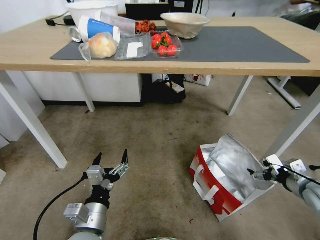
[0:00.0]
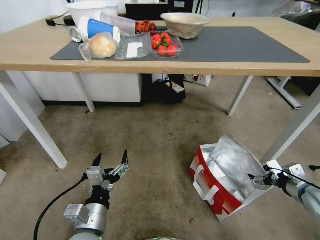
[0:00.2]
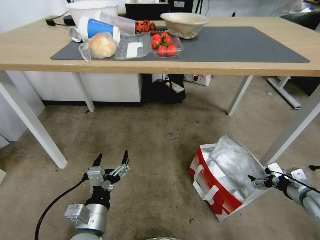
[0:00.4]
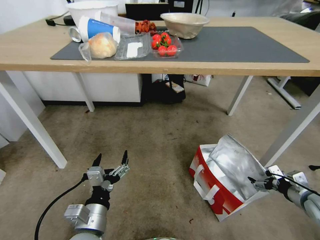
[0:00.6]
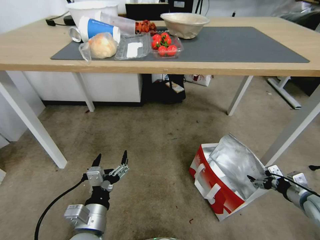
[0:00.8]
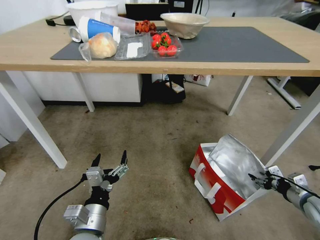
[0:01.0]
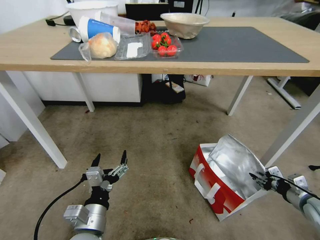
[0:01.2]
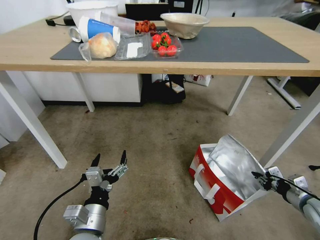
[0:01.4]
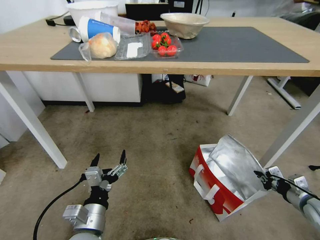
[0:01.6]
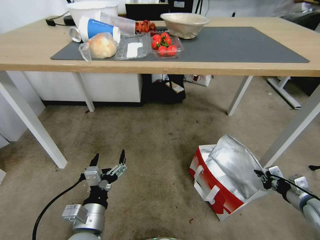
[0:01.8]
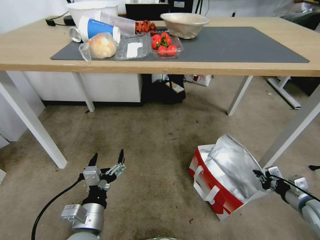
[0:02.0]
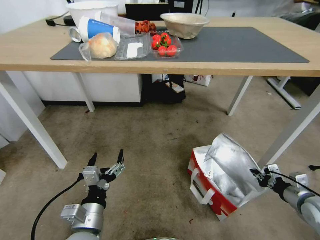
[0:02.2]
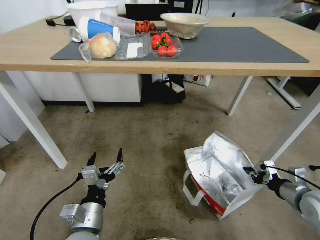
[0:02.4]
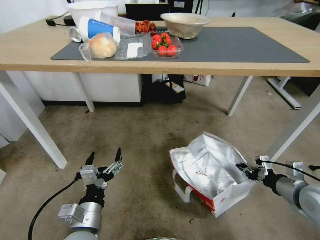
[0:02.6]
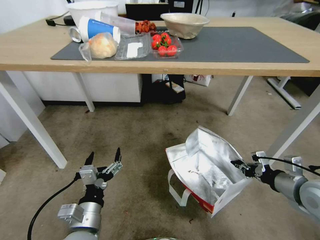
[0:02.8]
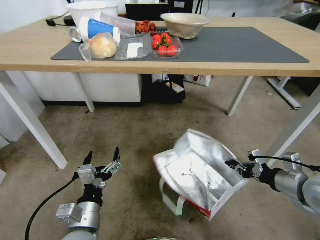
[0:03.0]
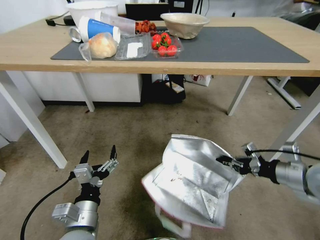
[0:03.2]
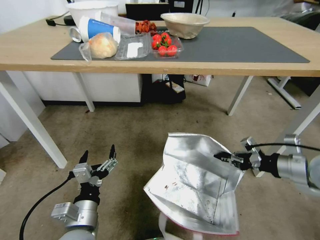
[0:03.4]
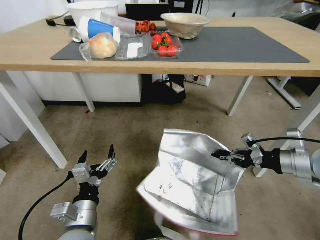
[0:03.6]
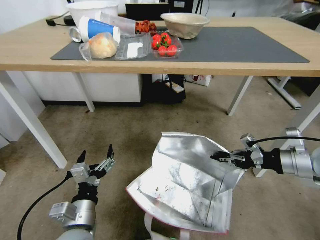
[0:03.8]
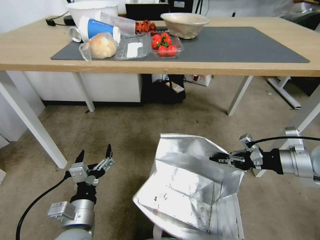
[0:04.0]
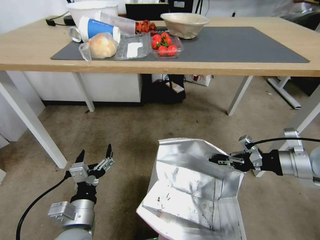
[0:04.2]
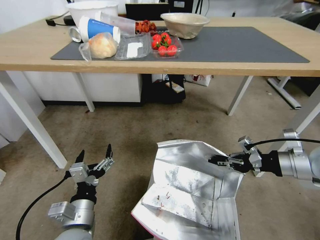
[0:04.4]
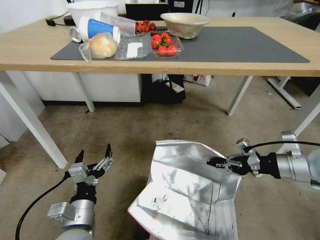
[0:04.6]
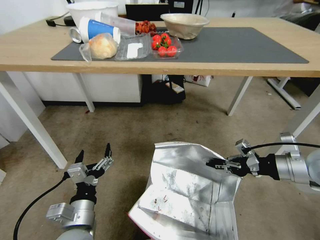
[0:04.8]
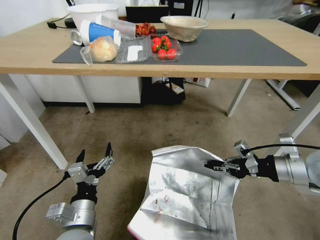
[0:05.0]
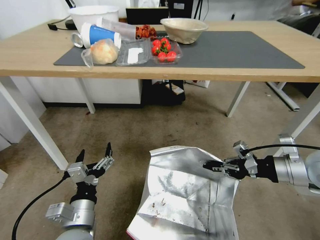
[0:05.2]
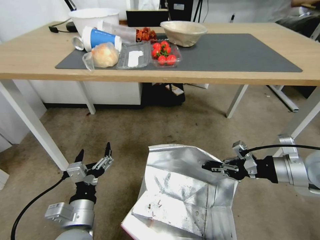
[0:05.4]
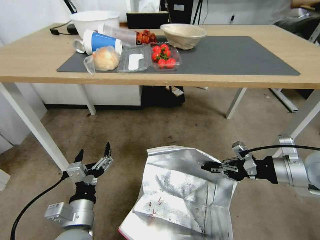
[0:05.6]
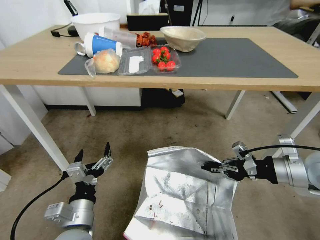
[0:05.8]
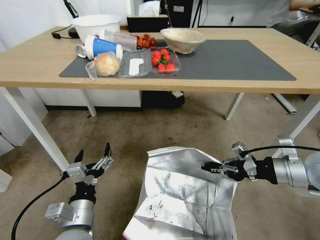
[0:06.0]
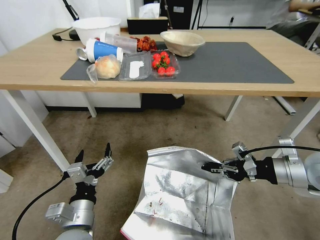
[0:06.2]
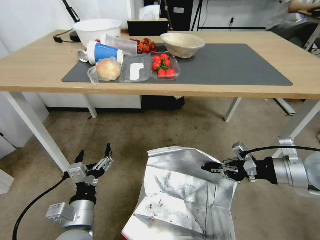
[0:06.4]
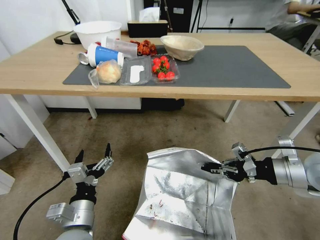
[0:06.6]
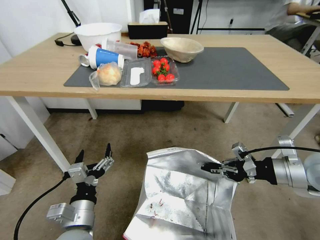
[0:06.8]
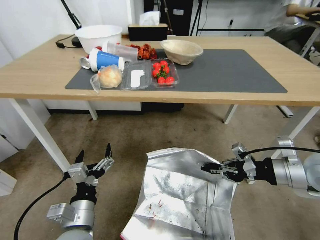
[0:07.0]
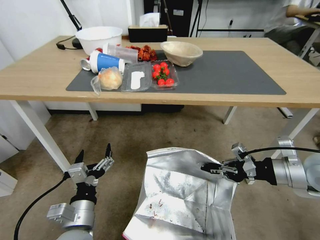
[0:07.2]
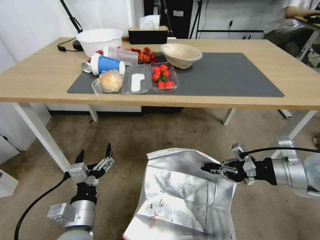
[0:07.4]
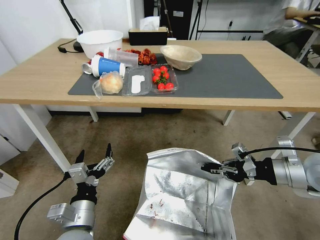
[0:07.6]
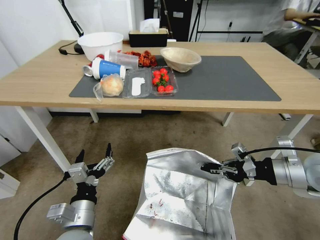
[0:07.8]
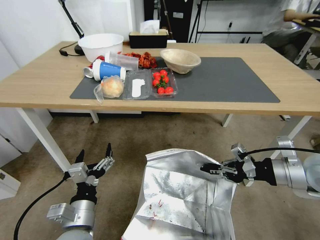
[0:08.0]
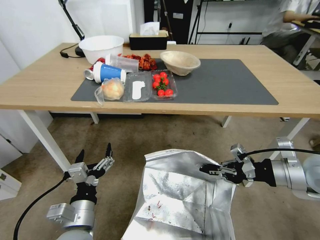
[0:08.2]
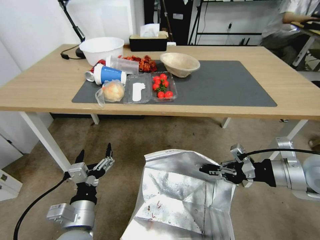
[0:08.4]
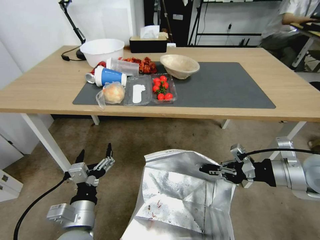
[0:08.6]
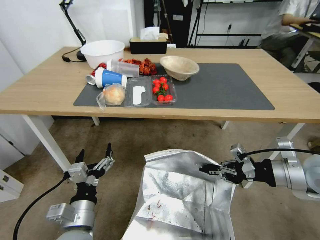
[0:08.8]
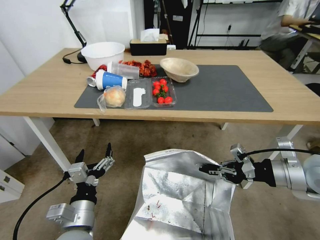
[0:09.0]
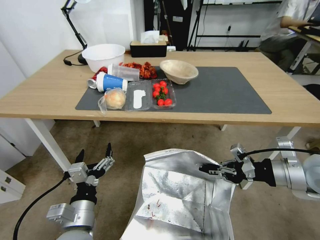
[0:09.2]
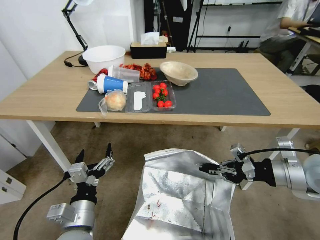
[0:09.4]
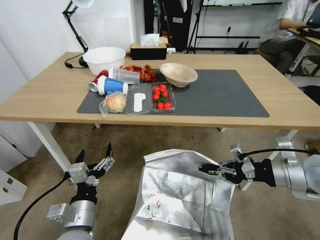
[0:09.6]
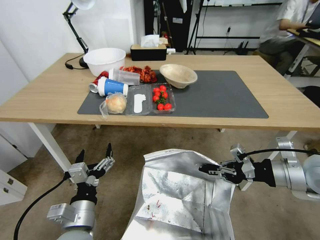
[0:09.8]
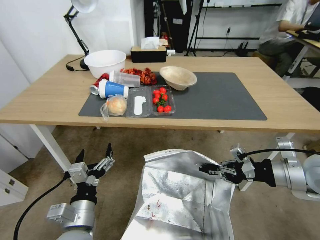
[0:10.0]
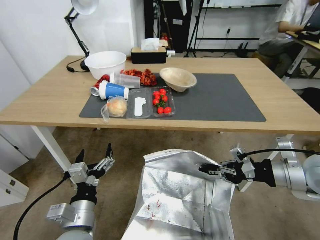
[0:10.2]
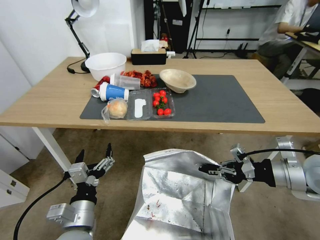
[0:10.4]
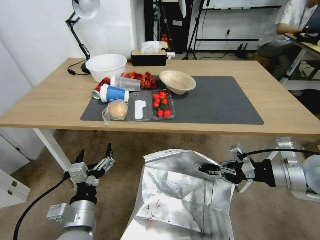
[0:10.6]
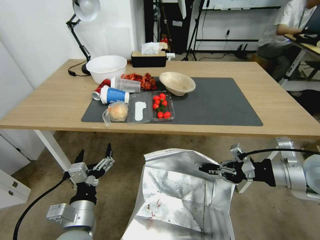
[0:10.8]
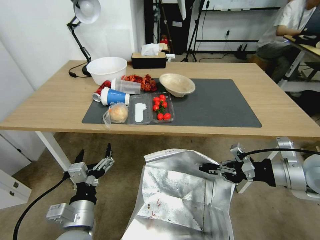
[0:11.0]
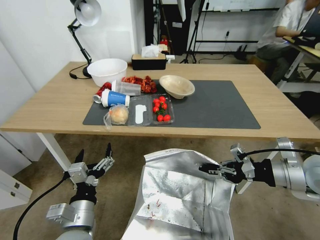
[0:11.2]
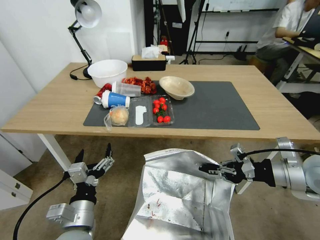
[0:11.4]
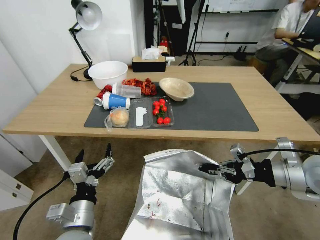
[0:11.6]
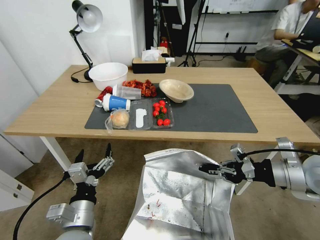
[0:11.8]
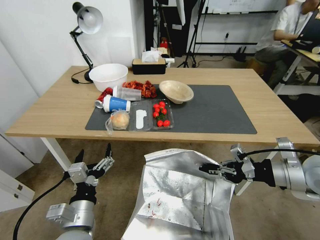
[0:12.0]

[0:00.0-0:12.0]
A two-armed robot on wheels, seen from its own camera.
Task of the whole recording: Pick up the food delivery bag from the floor and place it on the table.
0:00.0 to 0:01.6: The right gripper travels downward by roughly 10 cm, and closes.
0:01.6 to 0:03.0: The right gripper moves upward and to the left, approximately 15 cm.
0:03.0 to 0:04.4: The right gripper goes some 5 cm upward.

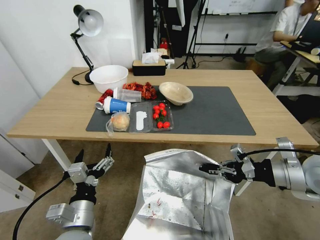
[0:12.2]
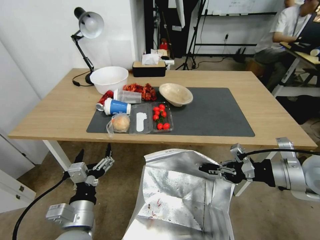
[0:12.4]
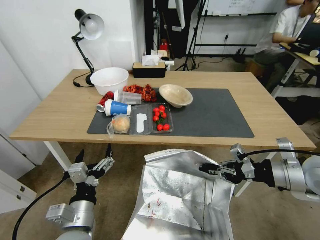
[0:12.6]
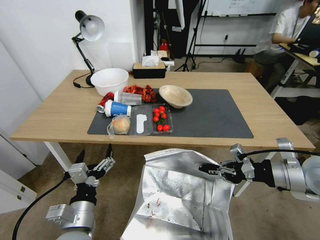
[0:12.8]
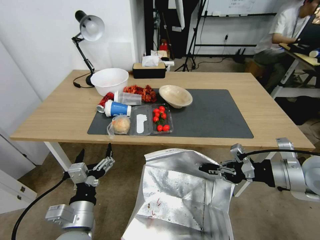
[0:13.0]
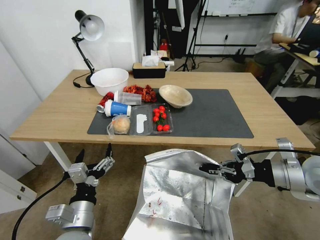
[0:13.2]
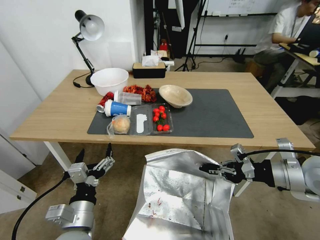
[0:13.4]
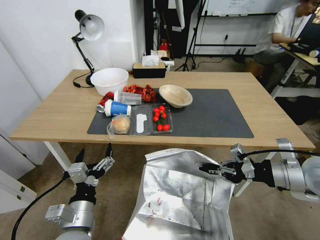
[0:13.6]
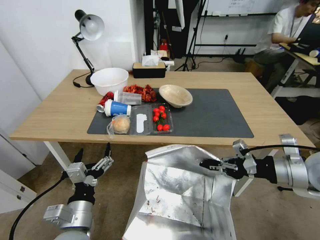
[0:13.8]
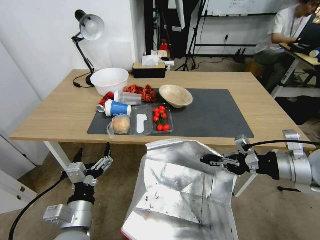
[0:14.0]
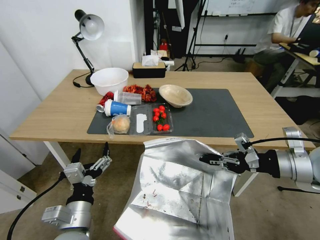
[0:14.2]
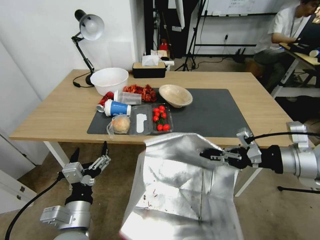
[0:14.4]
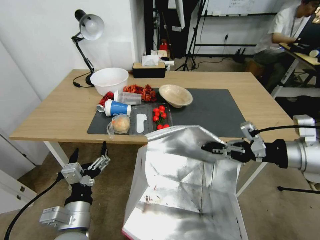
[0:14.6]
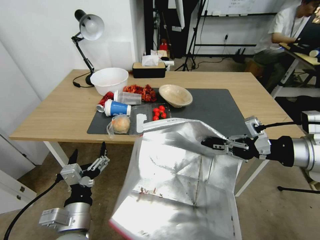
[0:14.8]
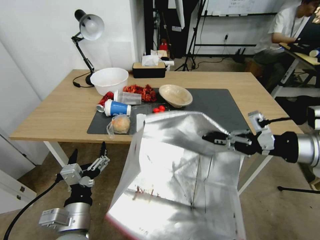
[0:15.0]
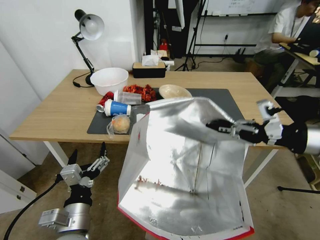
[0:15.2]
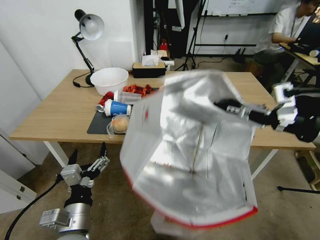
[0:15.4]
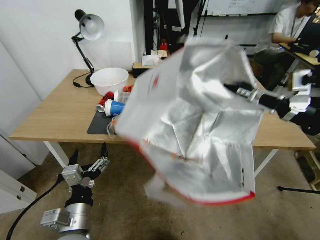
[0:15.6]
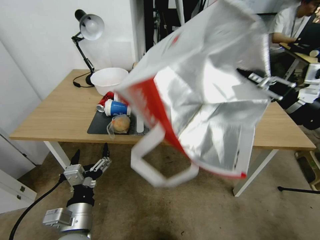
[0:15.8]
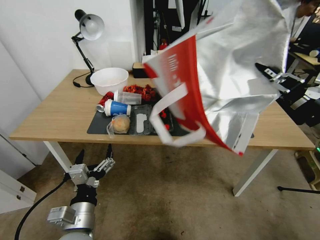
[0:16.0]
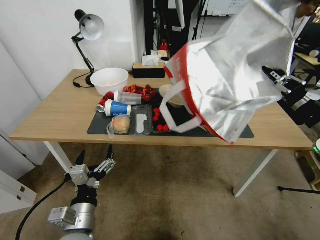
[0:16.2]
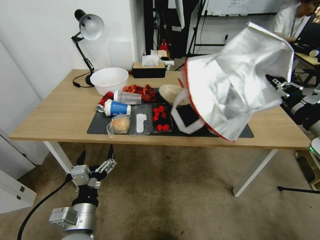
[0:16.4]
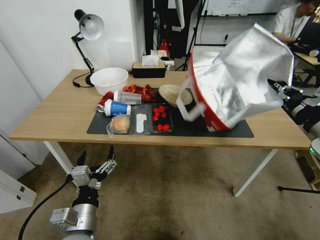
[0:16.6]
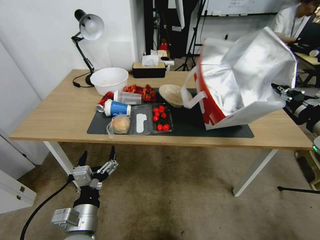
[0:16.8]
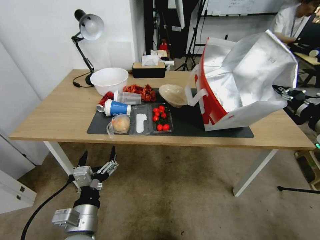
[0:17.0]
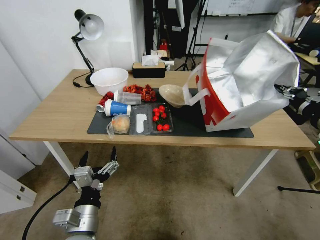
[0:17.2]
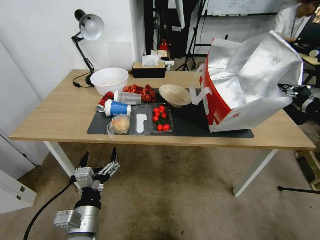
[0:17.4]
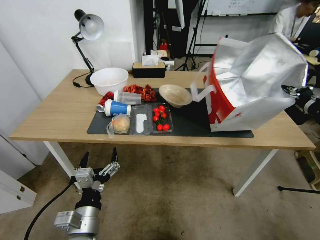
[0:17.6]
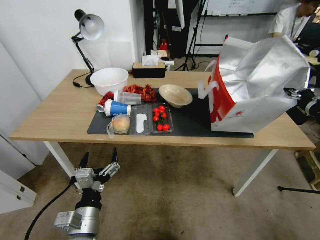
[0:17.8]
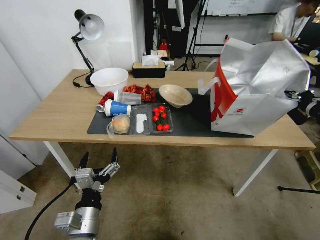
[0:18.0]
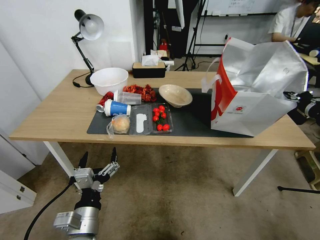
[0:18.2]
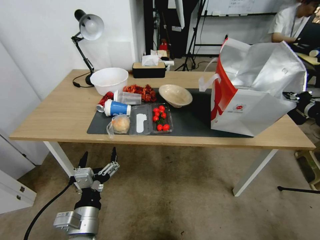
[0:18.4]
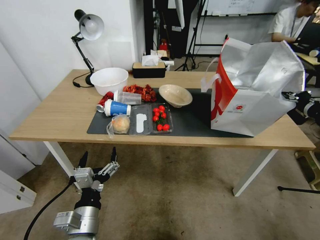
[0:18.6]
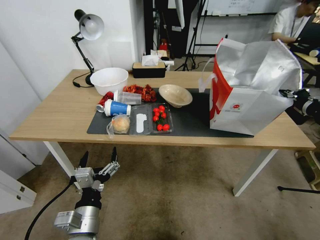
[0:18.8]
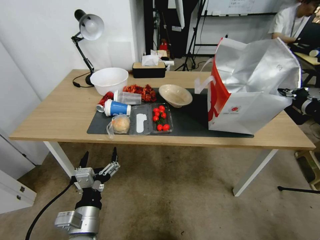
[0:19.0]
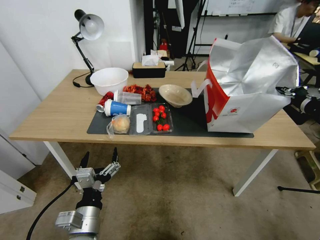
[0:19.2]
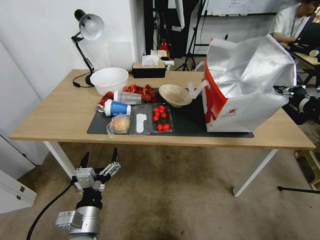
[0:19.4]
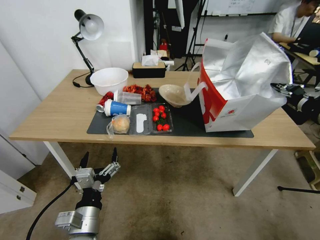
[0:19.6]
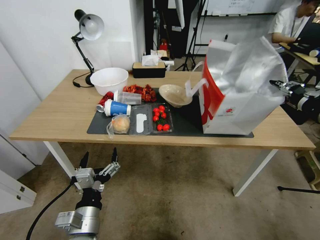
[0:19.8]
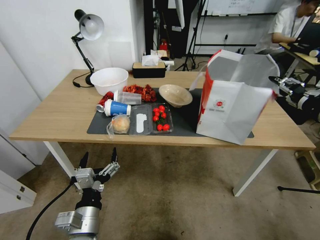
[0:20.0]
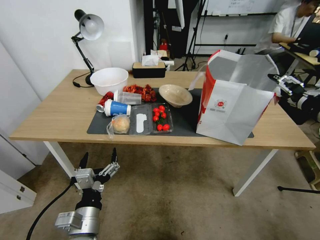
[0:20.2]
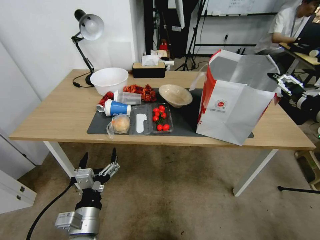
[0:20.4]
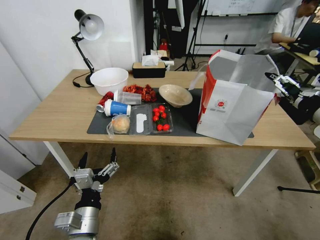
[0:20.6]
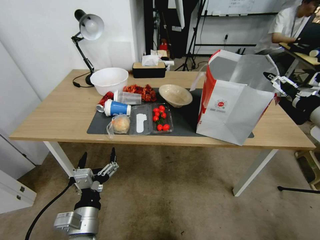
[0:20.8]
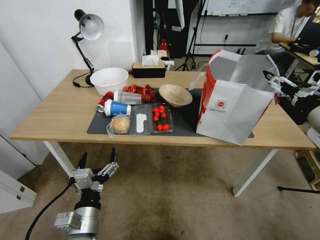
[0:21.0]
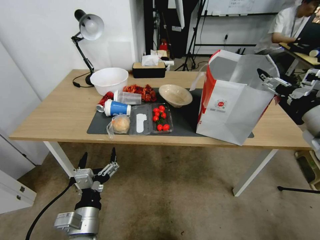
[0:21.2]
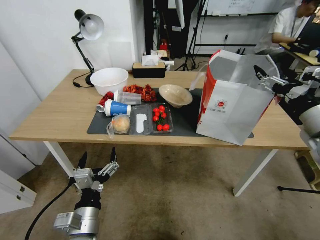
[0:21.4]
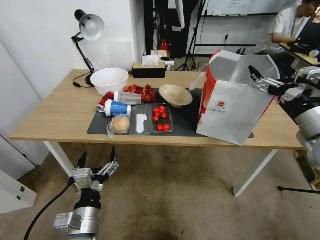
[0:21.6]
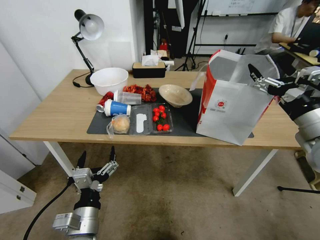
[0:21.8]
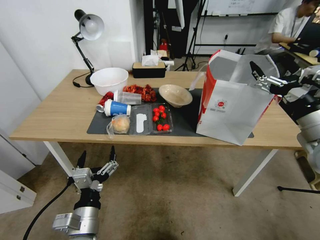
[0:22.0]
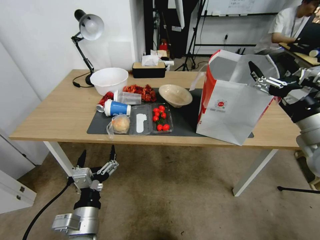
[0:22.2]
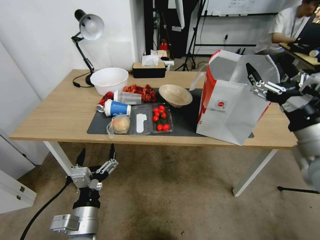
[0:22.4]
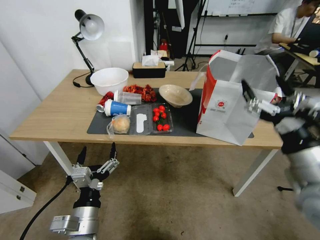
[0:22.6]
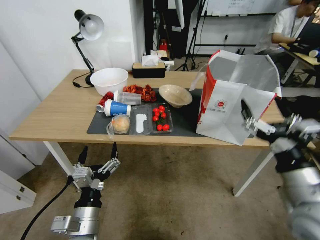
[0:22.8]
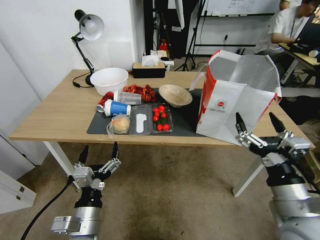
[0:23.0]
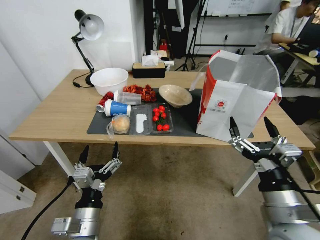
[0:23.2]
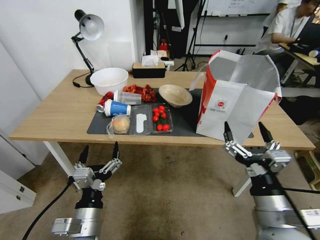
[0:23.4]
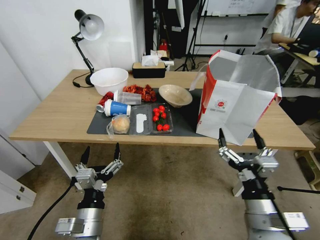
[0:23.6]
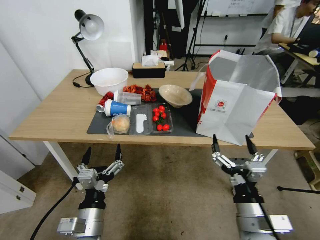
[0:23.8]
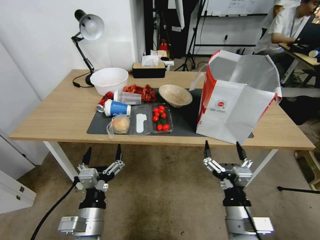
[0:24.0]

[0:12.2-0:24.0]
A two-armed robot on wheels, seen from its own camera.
Task of the whole recording: Pick up the food delivery bag from the floor and place it on the table.
0:12.2 to 0:13.6: Both grippers stay put.
0:13.6 to 0:15.2: The right gripper goes some 10 cm upward.
0:15.2 to 0:16.6: The right gripper shifts by about 5 cm.
0:18.2 to 0:19.6: The grippers move only a little.
0:19.6 to 0:21.0: The right gripper opens up.
0:21.0 to 0:22.6: The right gripper shifts about 15 cm to the left, backward and downward.
0:22.6 to 0:24.0: The right gripper travels downward and to the left by roughly 20 cm.
